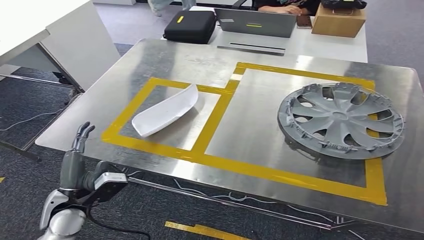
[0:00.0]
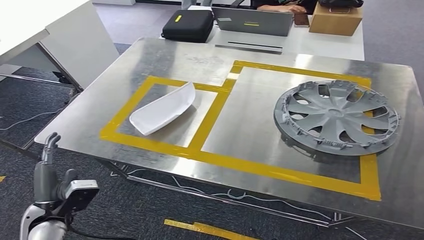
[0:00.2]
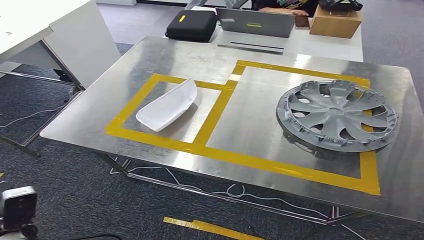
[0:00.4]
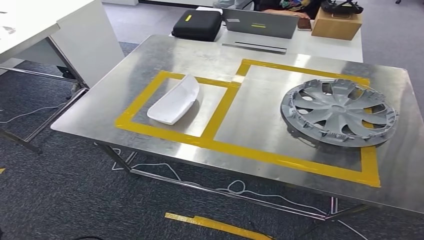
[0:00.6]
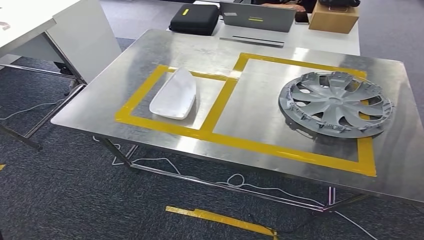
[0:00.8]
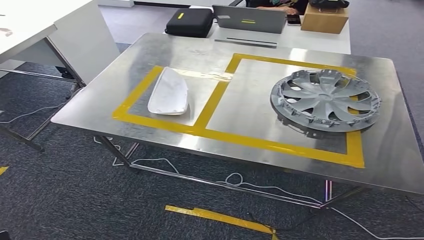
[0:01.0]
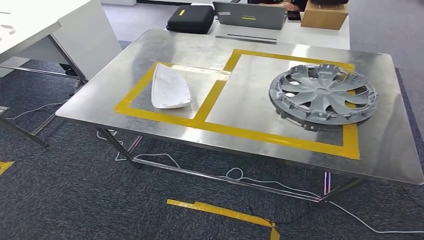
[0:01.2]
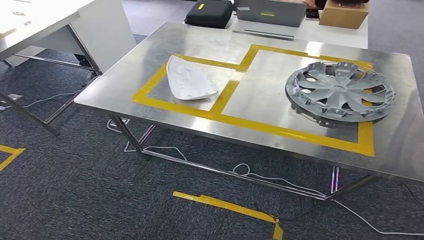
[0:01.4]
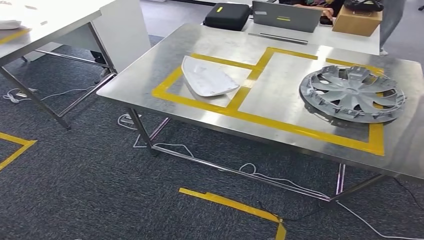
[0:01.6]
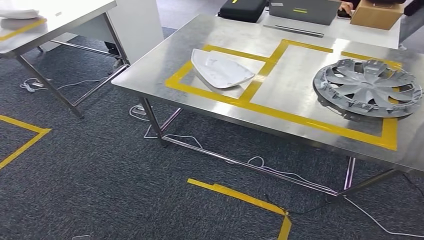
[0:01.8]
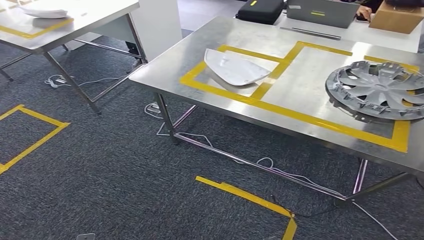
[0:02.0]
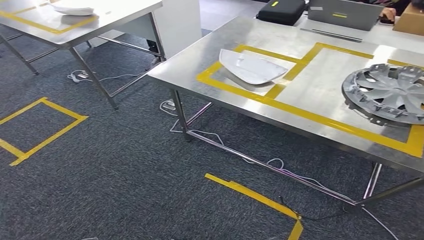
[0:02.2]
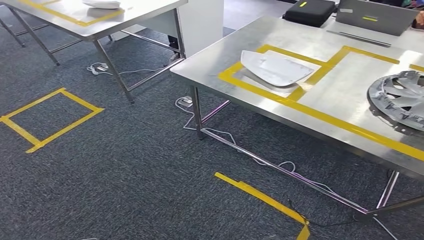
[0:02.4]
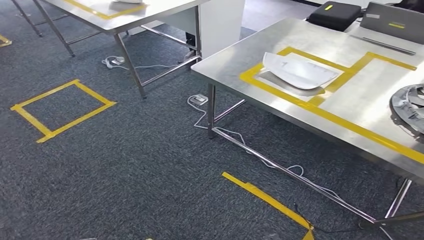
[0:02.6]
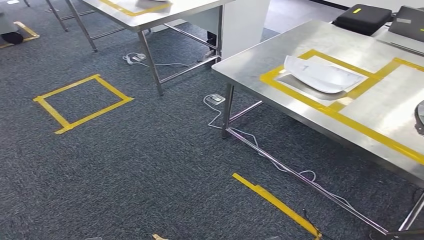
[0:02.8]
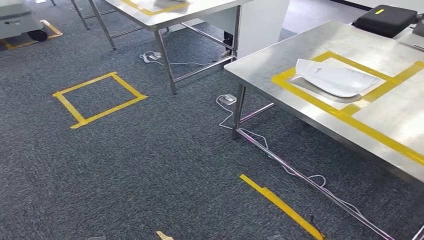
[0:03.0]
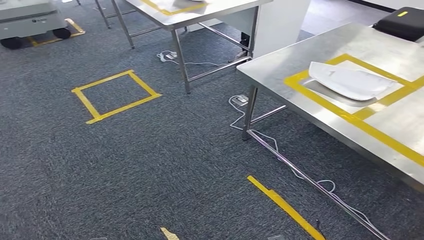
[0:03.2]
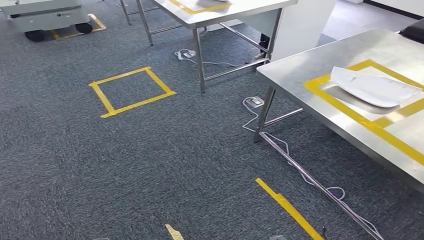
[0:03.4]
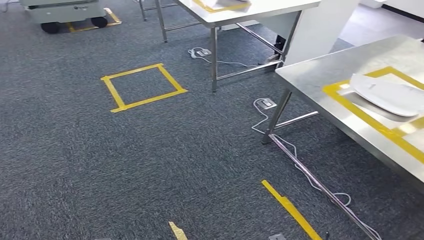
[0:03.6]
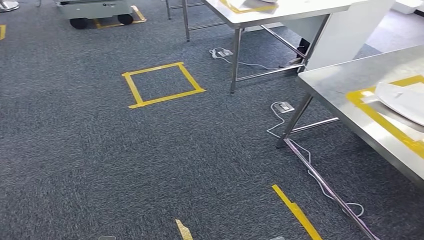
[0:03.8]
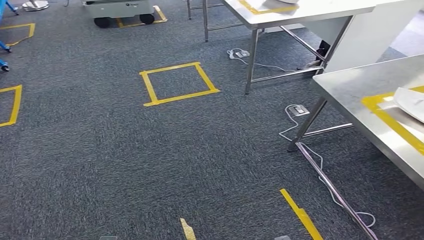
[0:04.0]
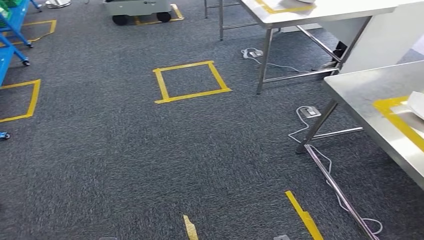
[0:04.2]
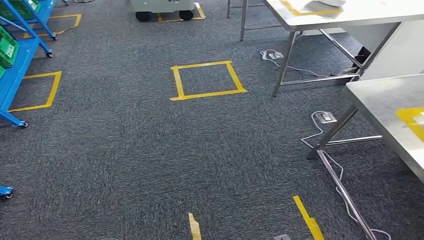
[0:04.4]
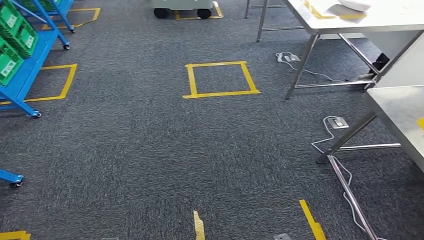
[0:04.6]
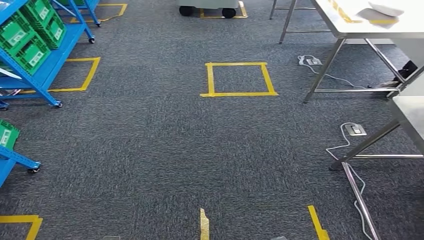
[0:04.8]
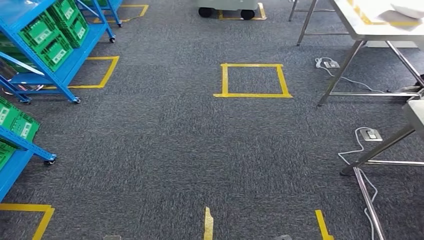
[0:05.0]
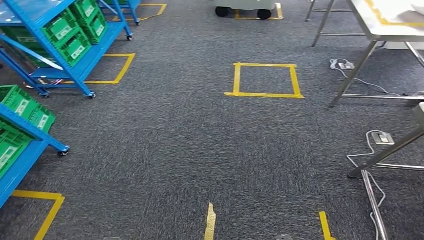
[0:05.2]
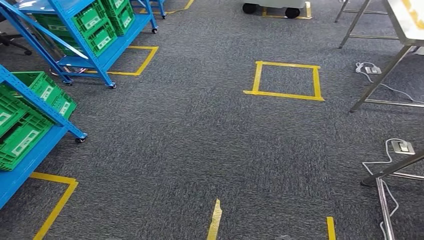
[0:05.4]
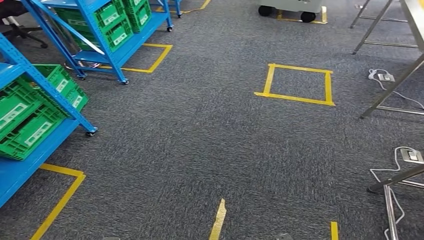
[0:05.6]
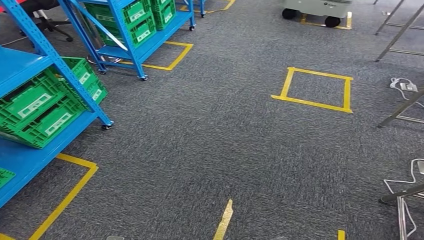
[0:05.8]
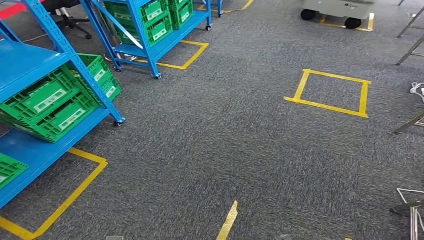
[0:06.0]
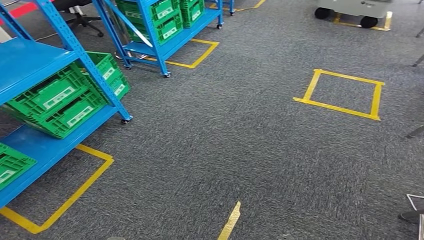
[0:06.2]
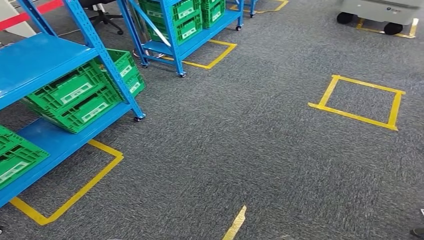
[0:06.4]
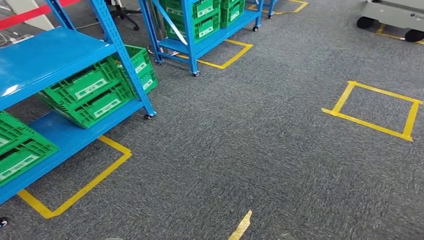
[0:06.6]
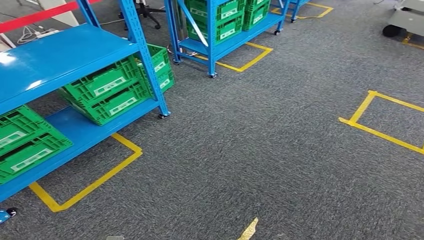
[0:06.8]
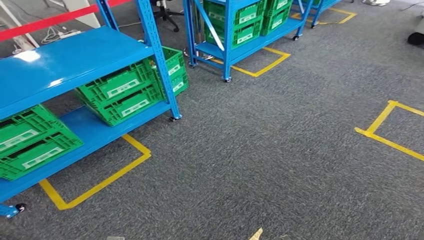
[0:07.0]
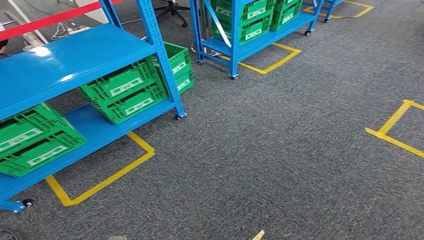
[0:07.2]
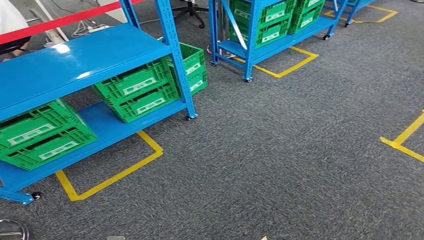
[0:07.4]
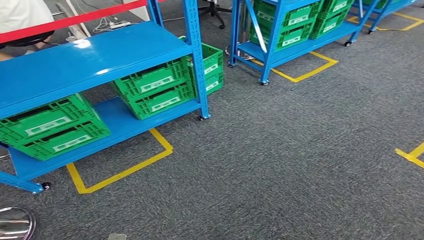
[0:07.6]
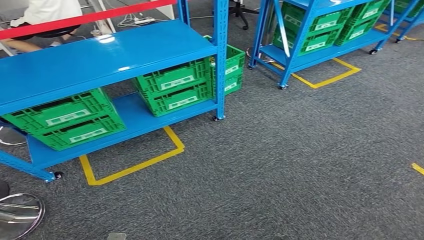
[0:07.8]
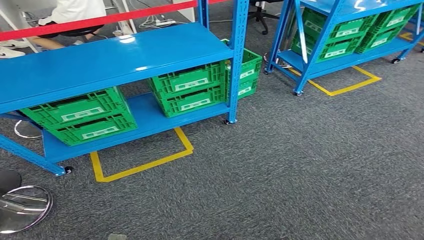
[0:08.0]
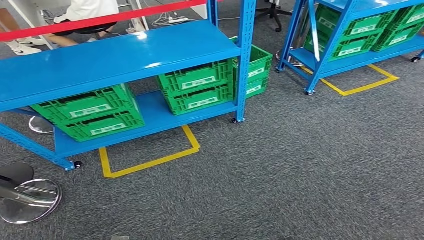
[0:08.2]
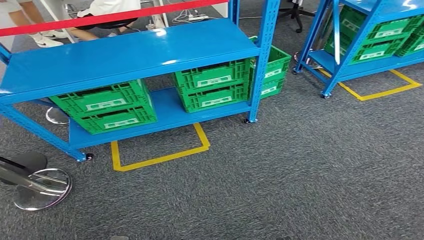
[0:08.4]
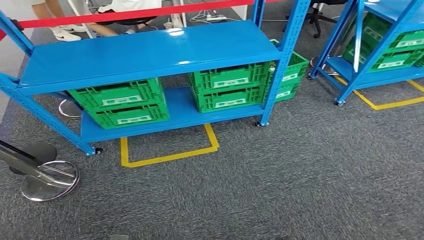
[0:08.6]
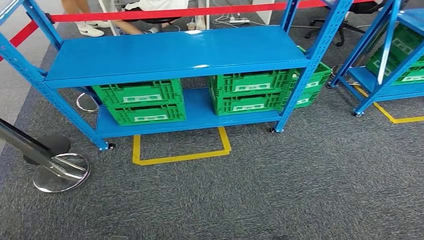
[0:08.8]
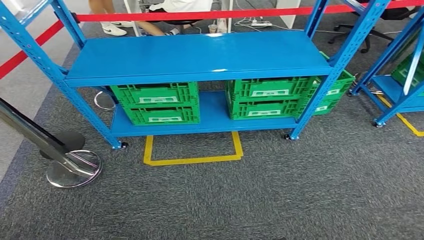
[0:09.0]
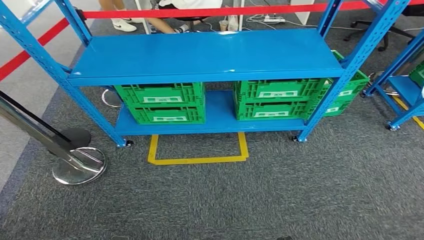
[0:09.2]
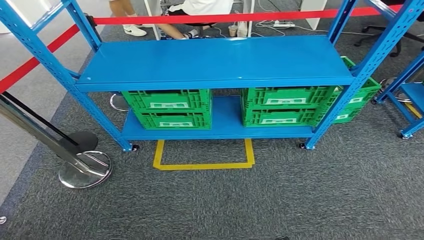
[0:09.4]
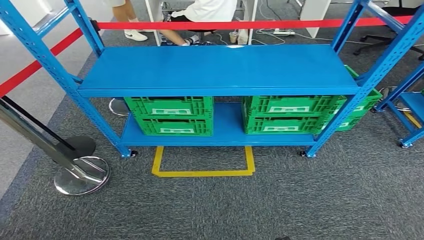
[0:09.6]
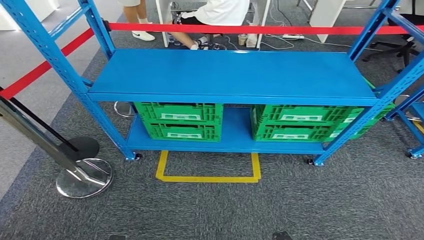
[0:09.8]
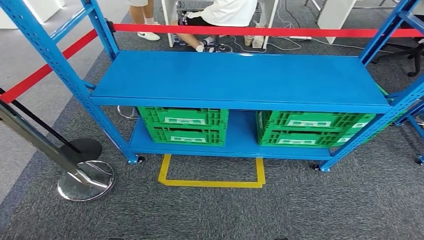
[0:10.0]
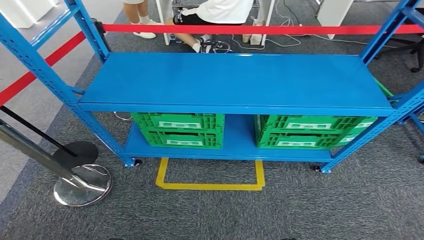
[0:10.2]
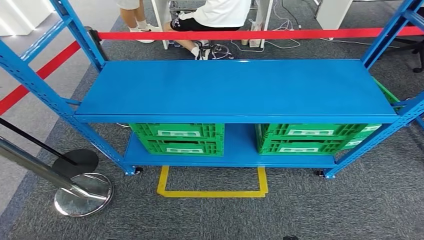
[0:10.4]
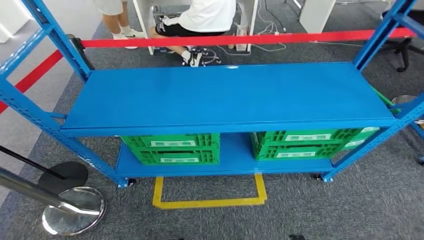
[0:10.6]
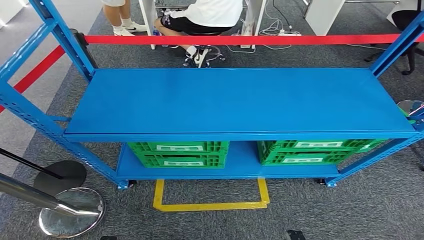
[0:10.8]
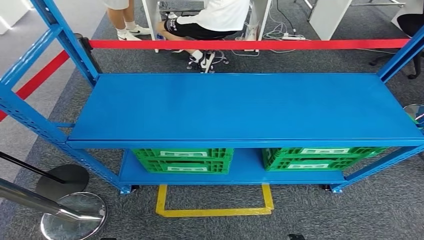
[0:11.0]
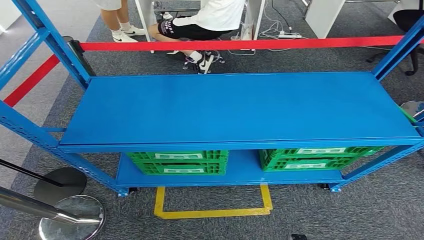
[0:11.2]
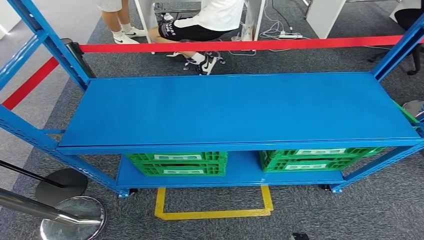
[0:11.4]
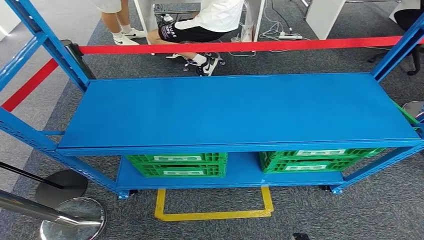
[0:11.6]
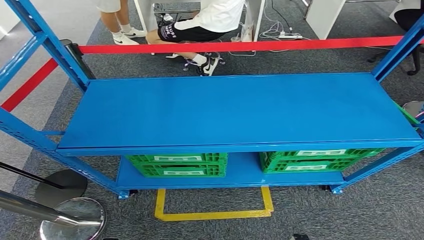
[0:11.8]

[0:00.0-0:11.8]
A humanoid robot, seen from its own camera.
Step, 0:00.6 to 0:11.8: Return to the initial position at the workbench.
